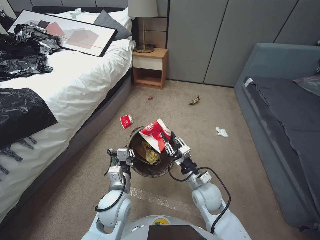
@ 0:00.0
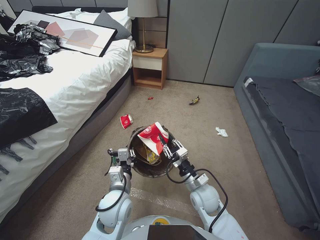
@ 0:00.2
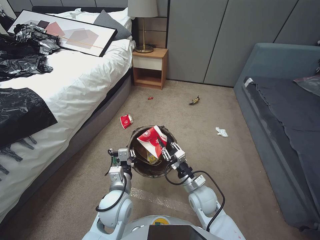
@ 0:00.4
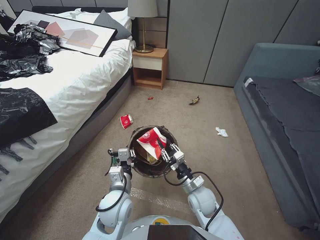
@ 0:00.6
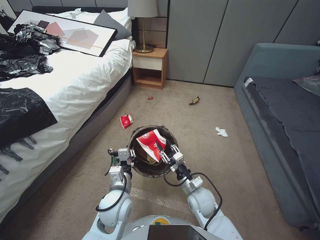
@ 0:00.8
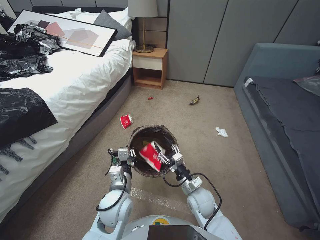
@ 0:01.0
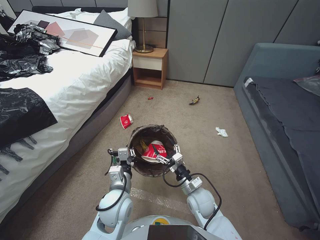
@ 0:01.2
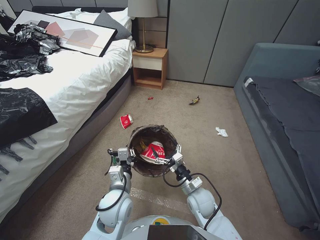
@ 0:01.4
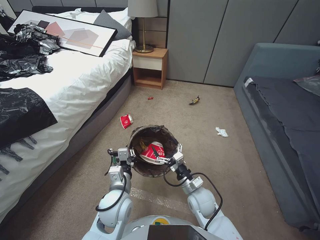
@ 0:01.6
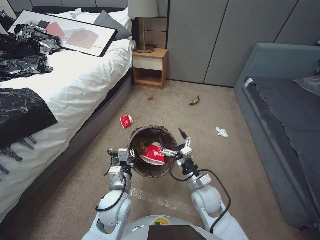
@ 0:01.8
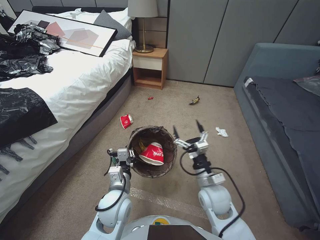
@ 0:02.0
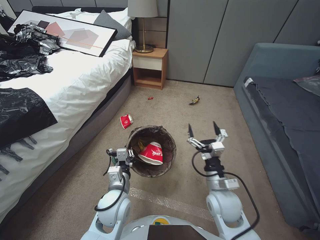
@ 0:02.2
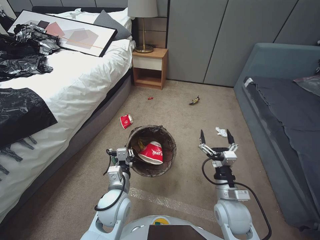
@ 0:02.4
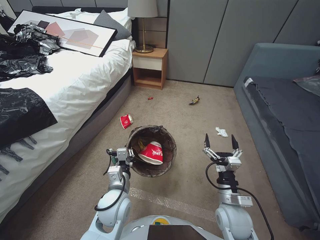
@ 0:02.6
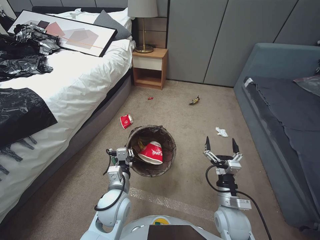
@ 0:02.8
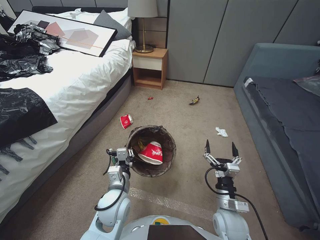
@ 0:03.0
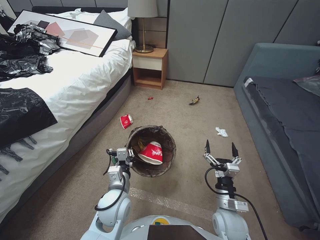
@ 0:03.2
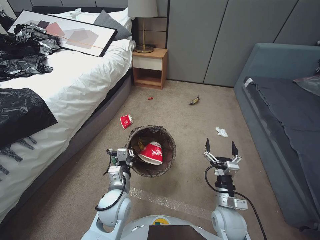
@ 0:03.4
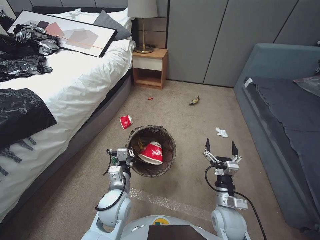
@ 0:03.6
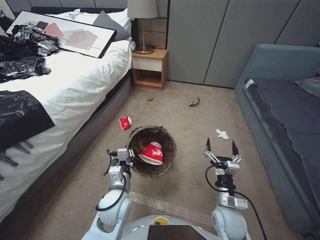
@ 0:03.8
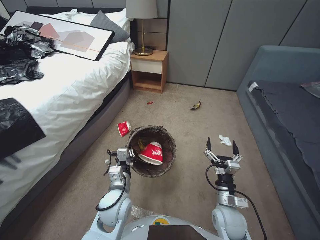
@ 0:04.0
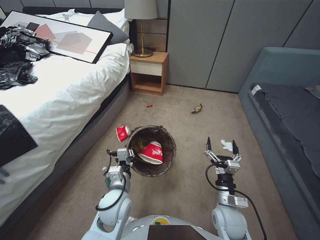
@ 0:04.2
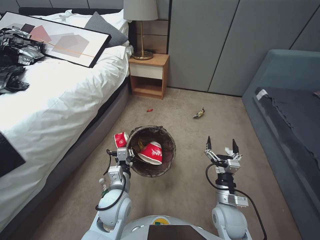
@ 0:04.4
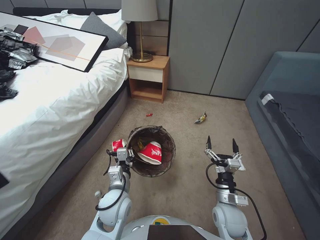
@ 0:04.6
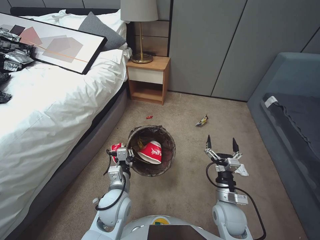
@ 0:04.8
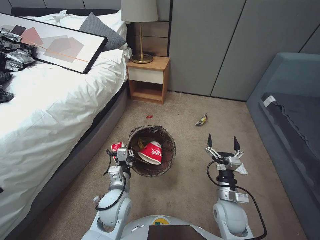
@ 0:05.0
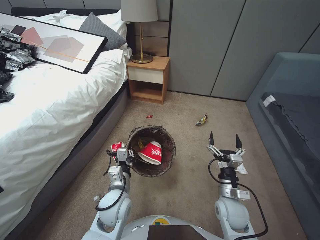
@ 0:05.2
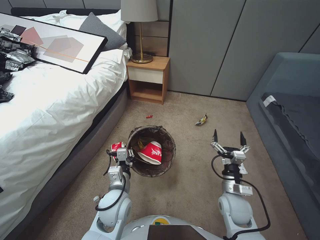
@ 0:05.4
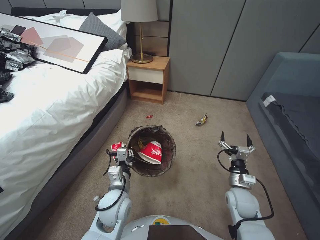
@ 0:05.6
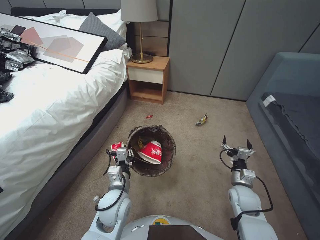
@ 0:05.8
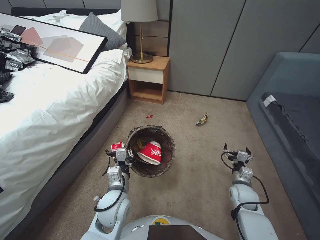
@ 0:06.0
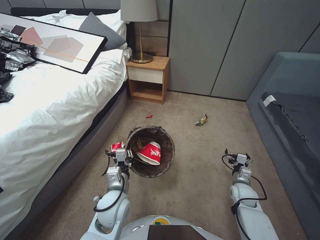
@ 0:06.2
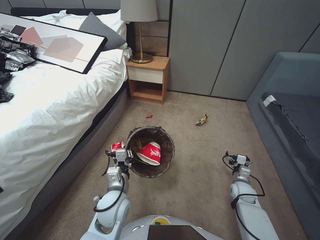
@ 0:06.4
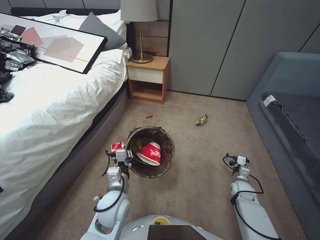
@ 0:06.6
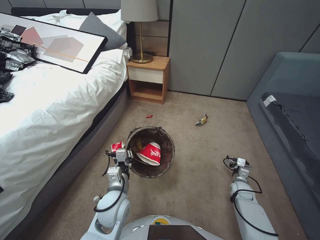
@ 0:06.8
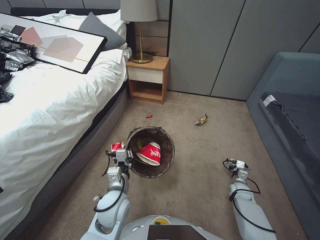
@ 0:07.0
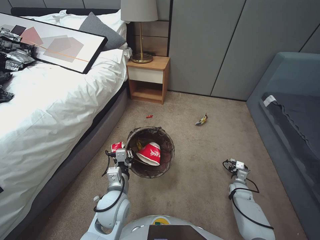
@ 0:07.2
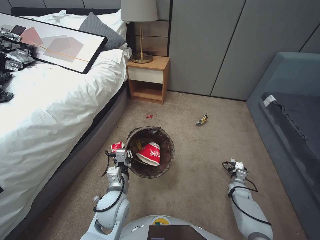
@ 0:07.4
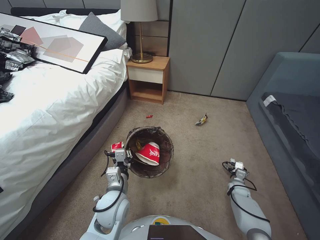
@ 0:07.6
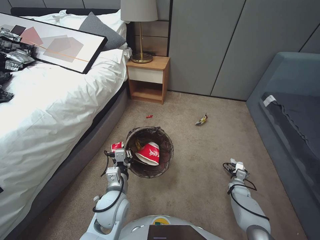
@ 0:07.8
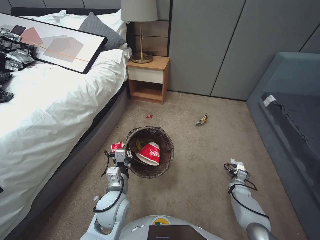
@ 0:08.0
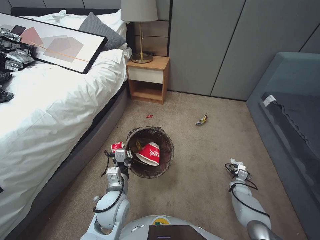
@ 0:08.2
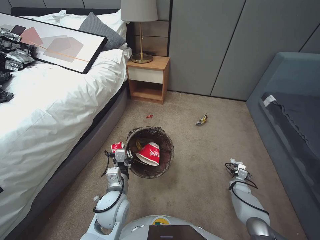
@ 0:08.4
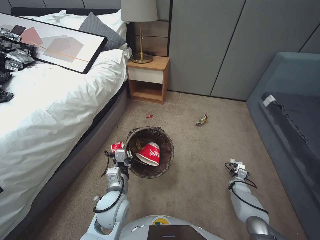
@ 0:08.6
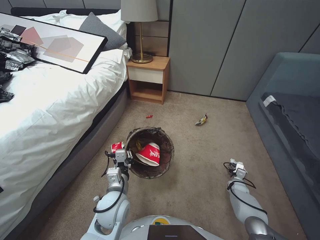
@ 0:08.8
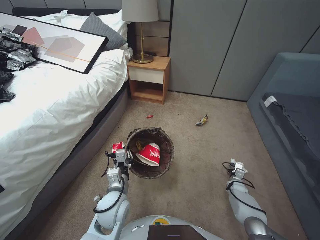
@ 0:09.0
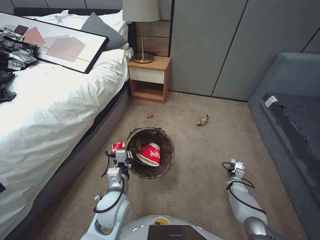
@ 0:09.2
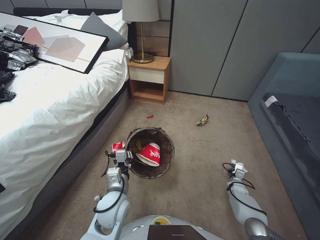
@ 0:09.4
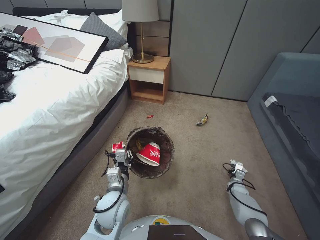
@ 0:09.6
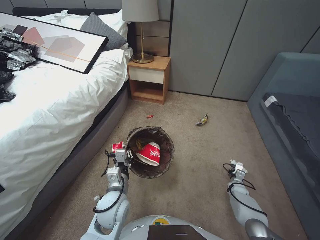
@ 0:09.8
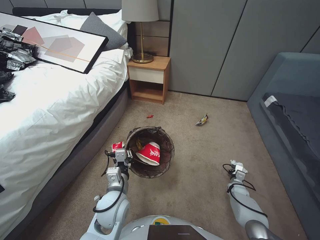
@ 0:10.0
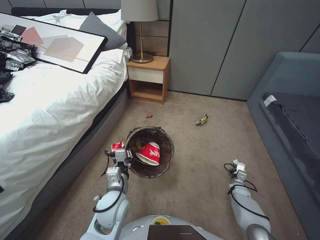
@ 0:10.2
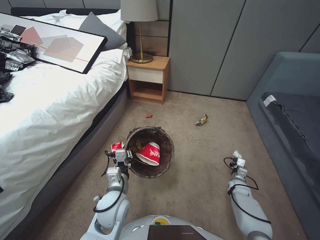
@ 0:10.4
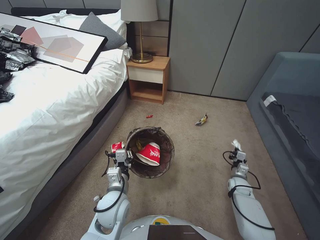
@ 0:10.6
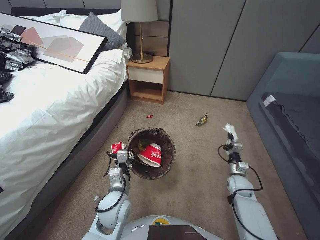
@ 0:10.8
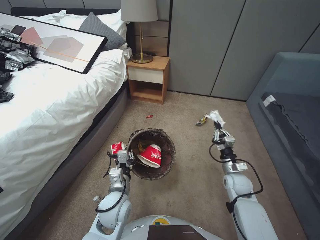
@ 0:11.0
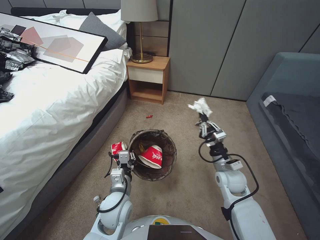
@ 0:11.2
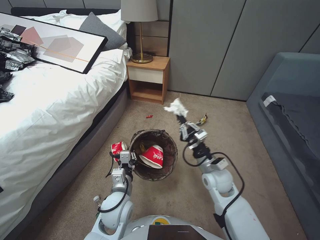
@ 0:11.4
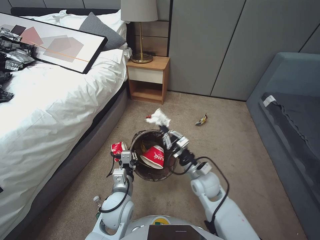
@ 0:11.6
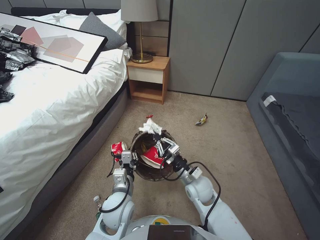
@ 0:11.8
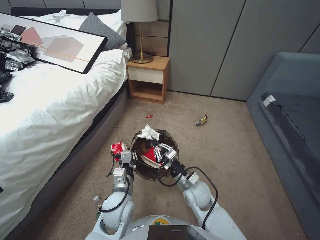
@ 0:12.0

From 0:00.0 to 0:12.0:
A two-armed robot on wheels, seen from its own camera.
Task of the whole recording: Pick up the trash bin, then pick up the garbage from the floor and place it into the trash bin.
From 0:00.0 to 0:01.6: The right gripper changes place by approximately 5 cm, and opens up.
From 0:01.6 to 0:03.0: The right gripper moves to the right and backward, about 10 cm, and goes upward and returns, some 10 cm each way.
From 0:04.4 to 0:06.0: The right gripper moves to the right and forward, approximately 15 cm.
From 0:06.0 to 0:07.6: The right gripper goes some 20 cm downward and to the right.
From 0:07.6 to 0:09.0: The right gripper closes its fingers.
From 0:09.0 to 0:10.4: The right gripper closes up.
From 0:10.4 to 0:12.0: The right gripper shifts some 35 cm to the left and upward.

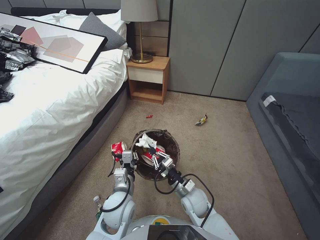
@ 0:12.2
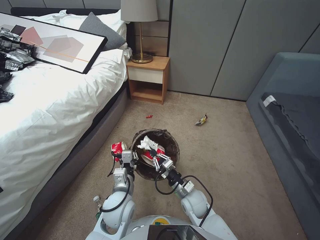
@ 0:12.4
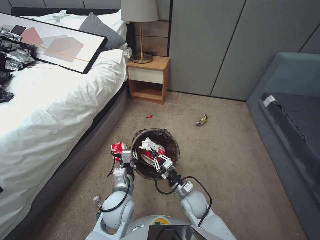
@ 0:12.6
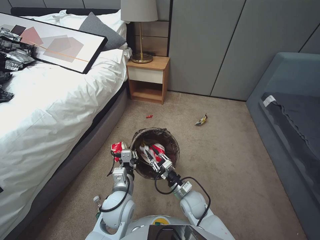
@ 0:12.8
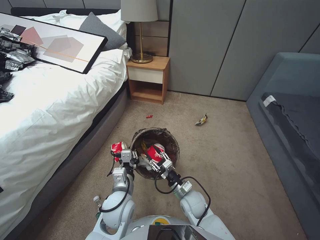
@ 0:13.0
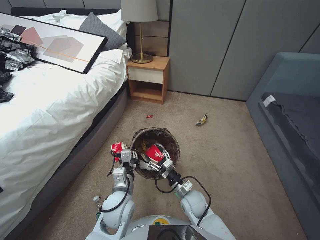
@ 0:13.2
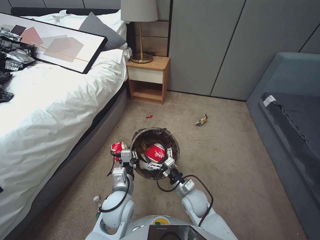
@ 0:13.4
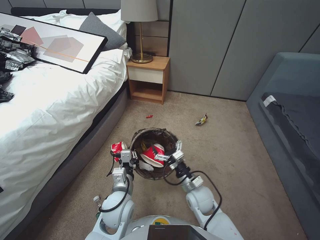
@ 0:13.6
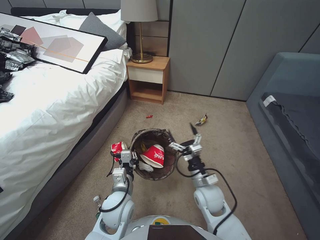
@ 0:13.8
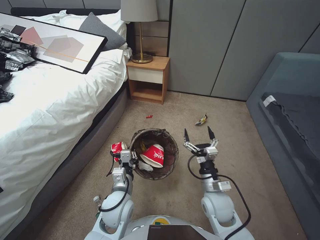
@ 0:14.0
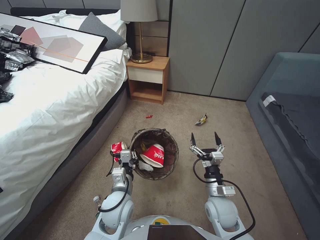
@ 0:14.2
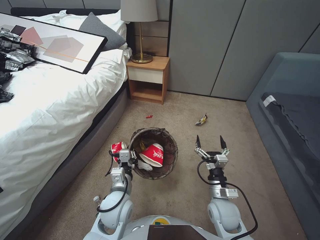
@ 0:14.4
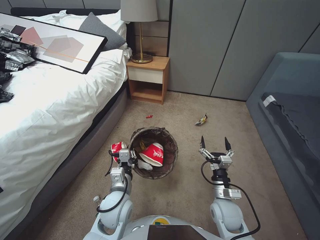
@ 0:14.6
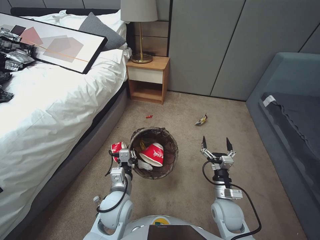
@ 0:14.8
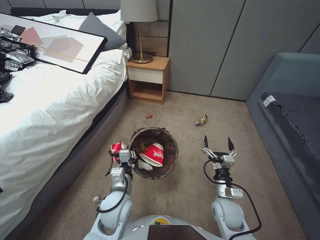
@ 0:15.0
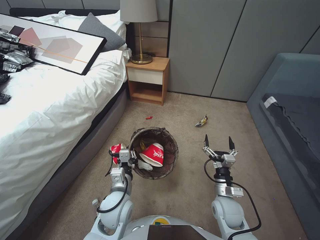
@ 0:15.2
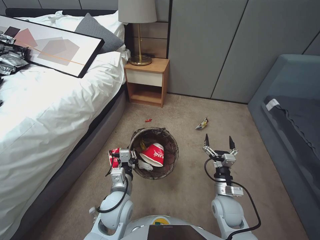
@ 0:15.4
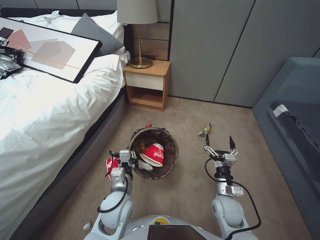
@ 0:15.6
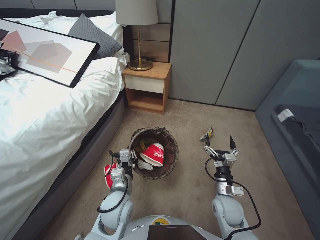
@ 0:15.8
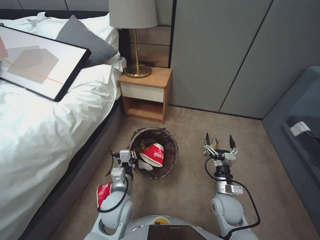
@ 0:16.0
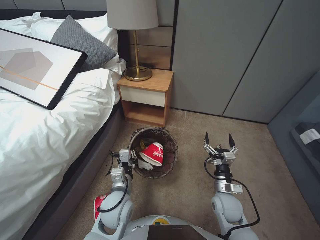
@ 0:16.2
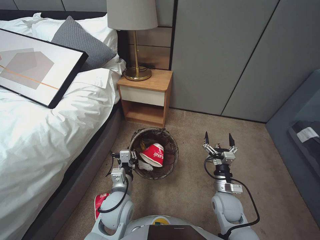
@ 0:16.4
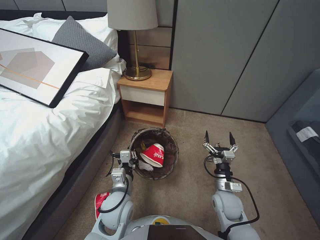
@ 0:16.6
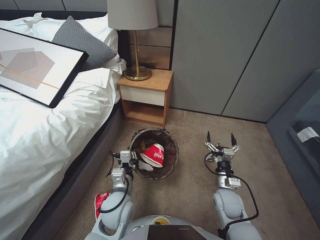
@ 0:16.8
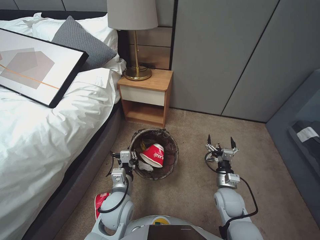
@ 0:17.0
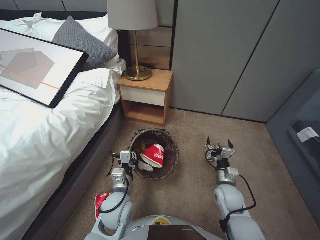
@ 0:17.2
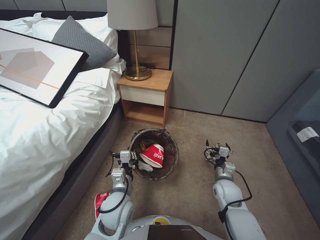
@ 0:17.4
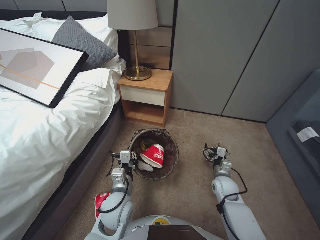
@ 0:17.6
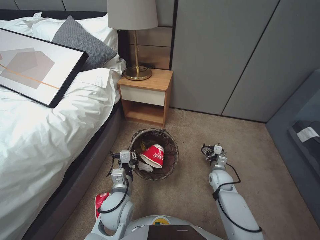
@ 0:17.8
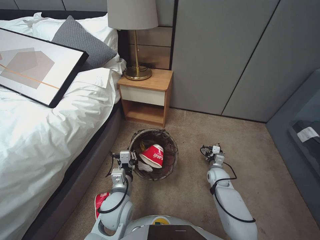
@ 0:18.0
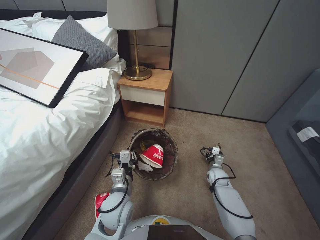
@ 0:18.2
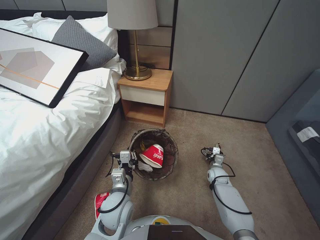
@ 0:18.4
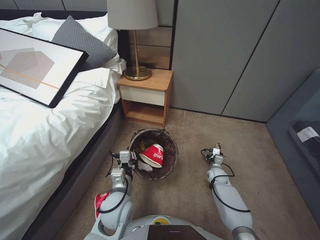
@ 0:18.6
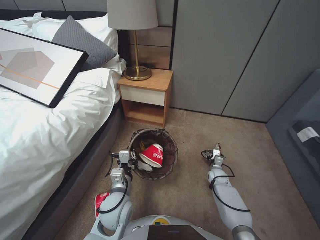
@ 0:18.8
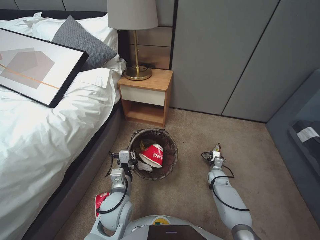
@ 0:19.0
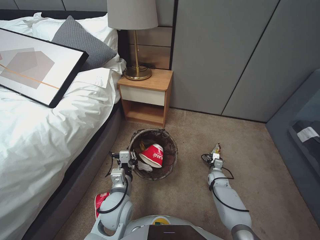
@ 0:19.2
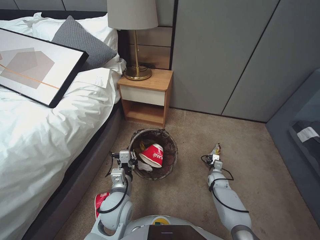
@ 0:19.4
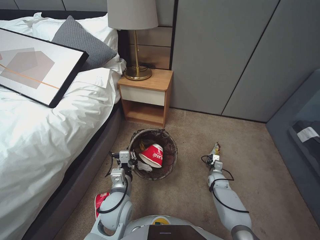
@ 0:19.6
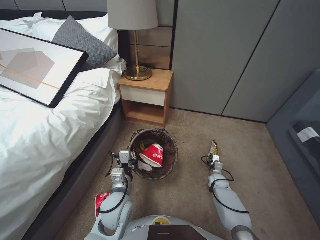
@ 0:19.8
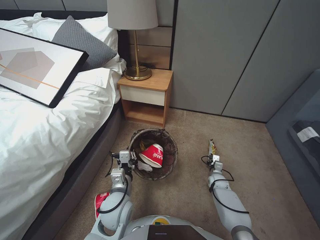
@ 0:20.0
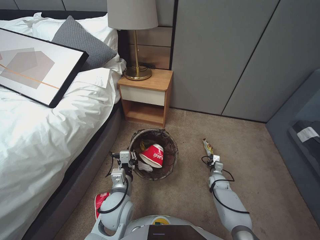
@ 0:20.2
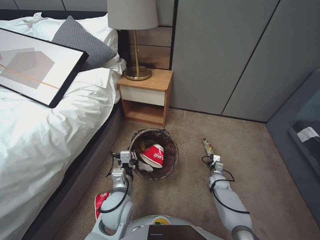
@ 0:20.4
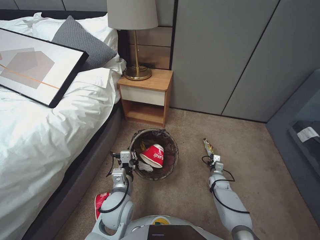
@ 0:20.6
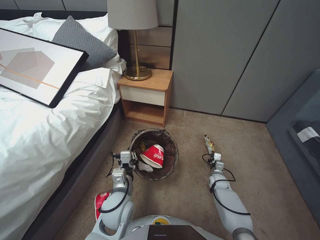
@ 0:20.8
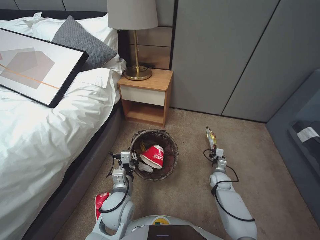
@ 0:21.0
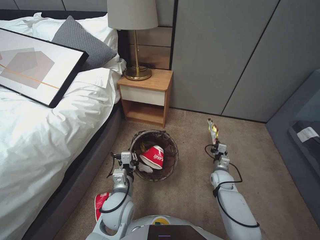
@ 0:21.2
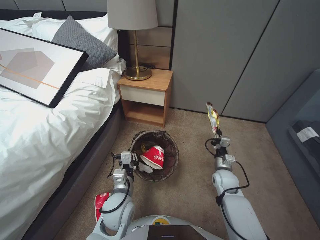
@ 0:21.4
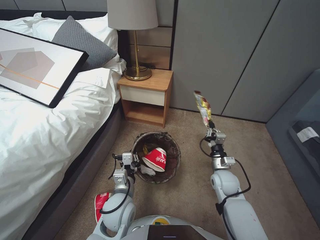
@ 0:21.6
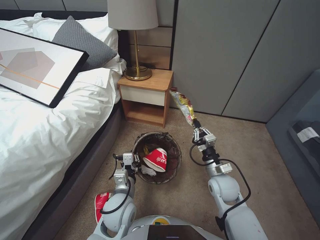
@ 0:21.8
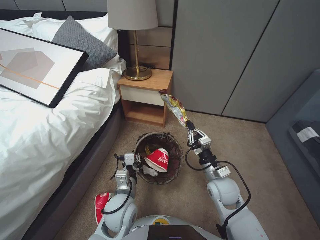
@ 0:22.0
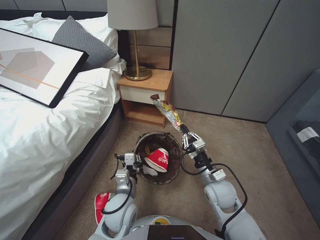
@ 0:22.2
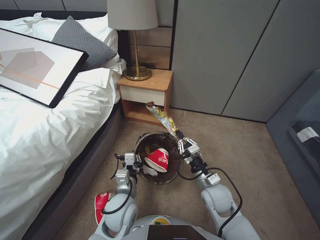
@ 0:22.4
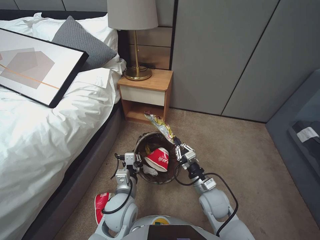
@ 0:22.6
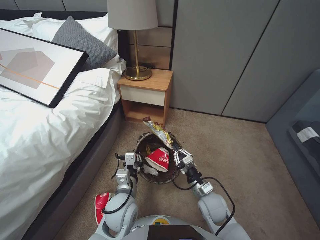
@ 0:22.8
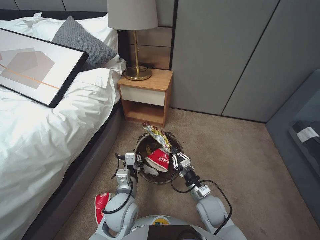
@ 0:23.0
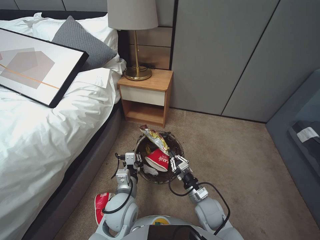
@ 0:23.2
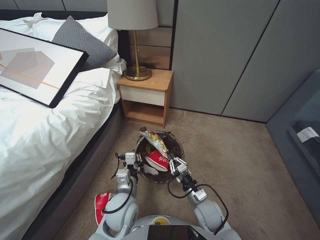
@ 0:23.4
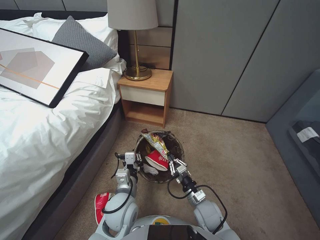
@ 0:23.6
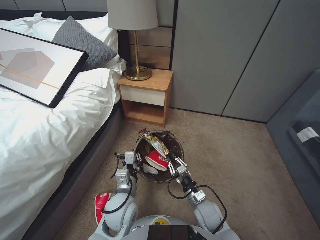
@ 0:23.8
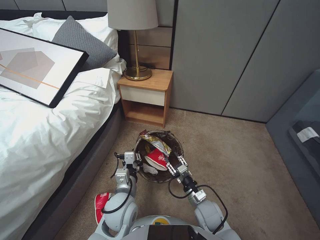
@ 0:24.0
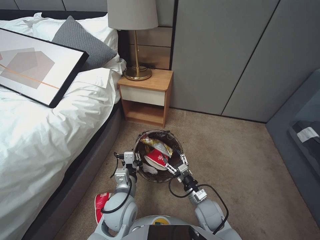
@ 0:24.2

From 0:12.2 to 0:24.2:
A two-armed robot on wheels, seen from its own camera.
Task of the whole recording: Pick up the trash bin, then pick up the garbage from the floor and place it into the trash bin.
From 0:12.2 to 0:13.8: The right gripper moves some 10 cm downward and comes back, and opens its fingers.
From 0:13.8 to 0:15.2: The right gripper travels to the right by approximately 5 cm.
From 0:16.6 to 0:18.2: The right gripper travels forward and downward by roughly 15 cm.
From 0:18.2 to 0:19.8: The right gripper moves downward, approximately 5 cm, and closes up.
From 0:19.8 to 0:21.2: The right gripper heads upward, covering some 10 cm, and closes its fingers.
From 0:21.2 to 0:22.6: The right gripper moves to the left, upward and backward, approximately 20 cm.
From 0:22.6 to 0:24.2: The right gripper moves downward, some 5 cm, and opens.
